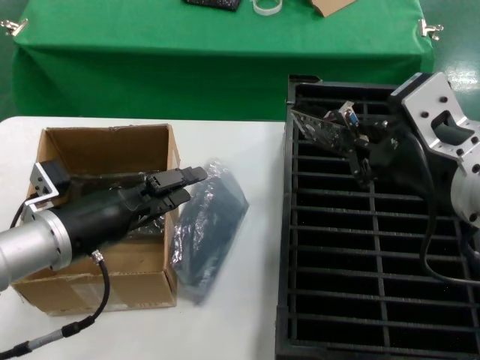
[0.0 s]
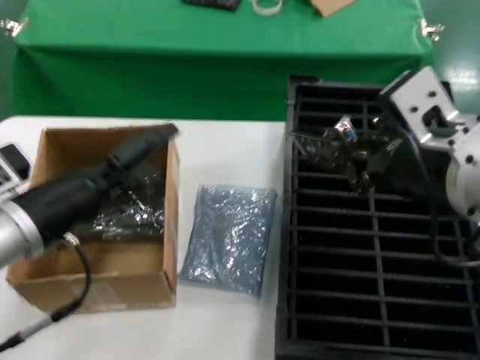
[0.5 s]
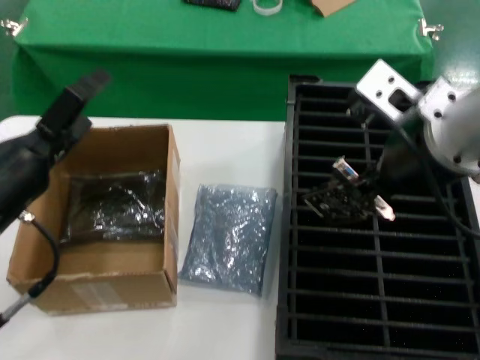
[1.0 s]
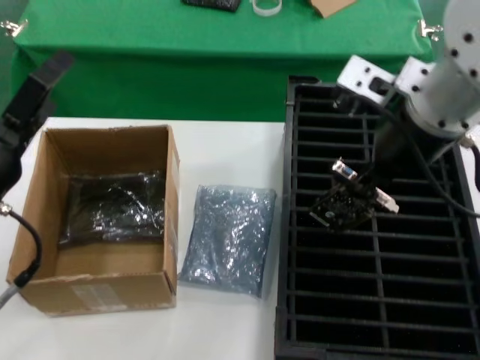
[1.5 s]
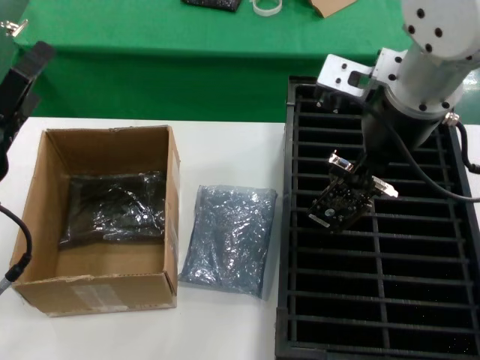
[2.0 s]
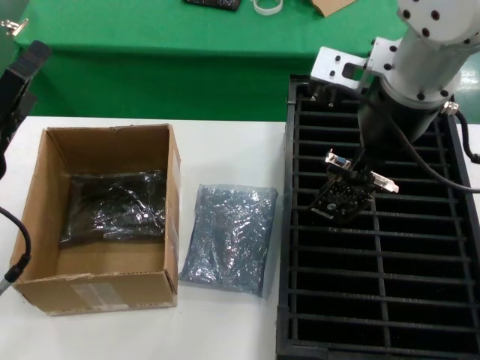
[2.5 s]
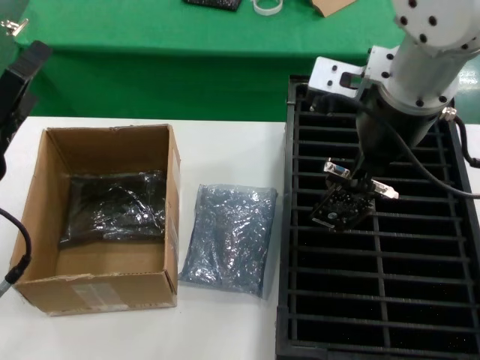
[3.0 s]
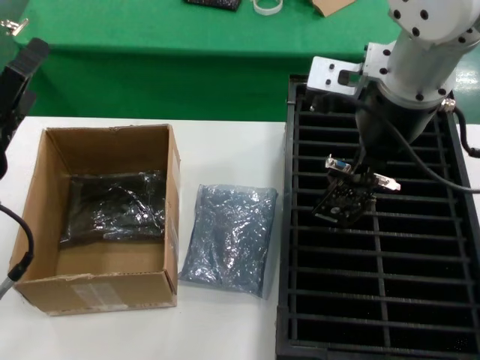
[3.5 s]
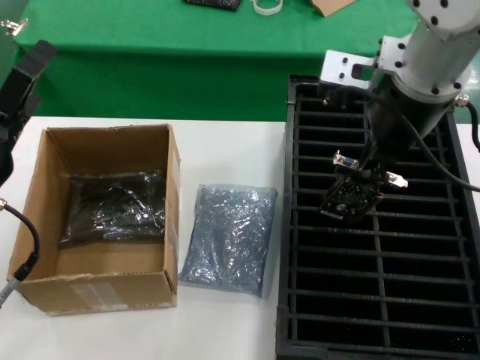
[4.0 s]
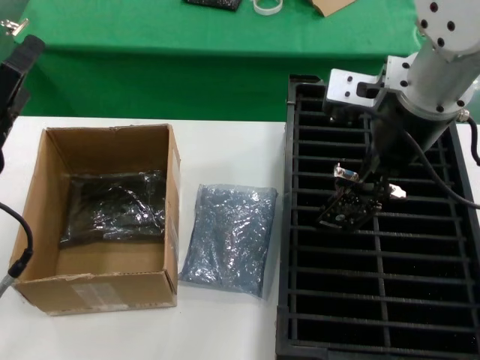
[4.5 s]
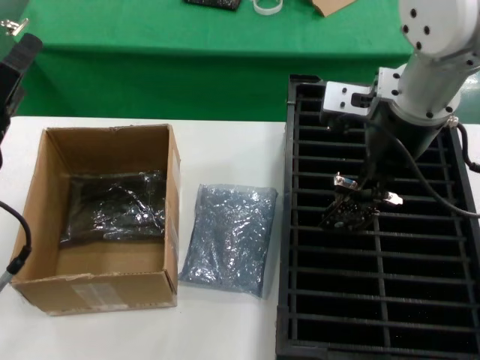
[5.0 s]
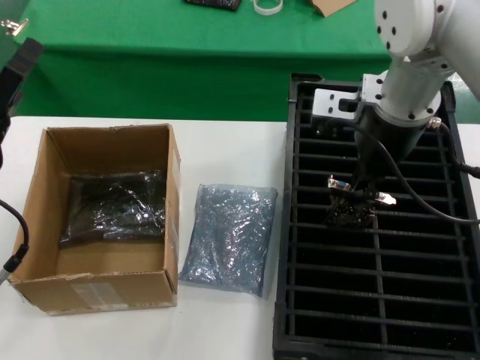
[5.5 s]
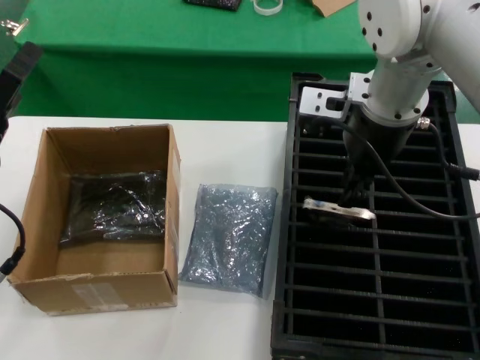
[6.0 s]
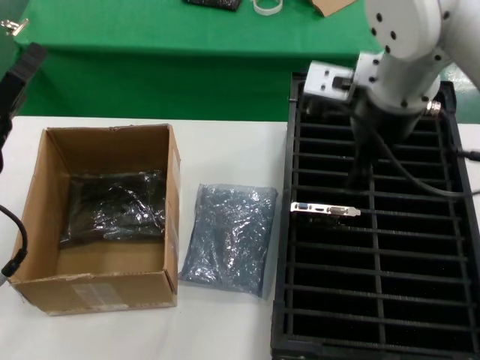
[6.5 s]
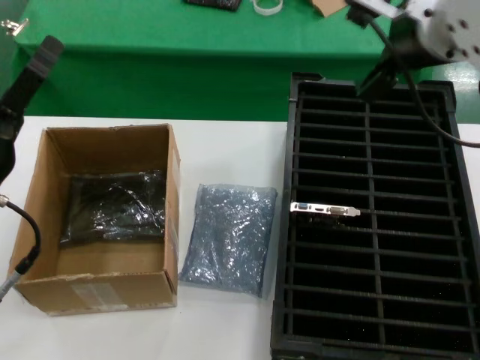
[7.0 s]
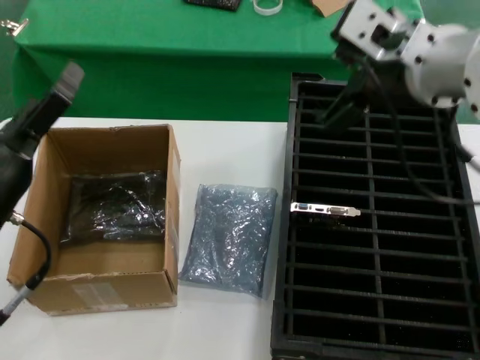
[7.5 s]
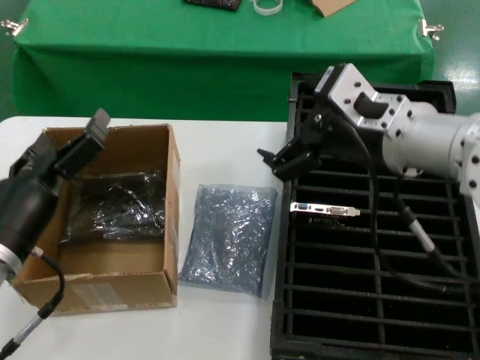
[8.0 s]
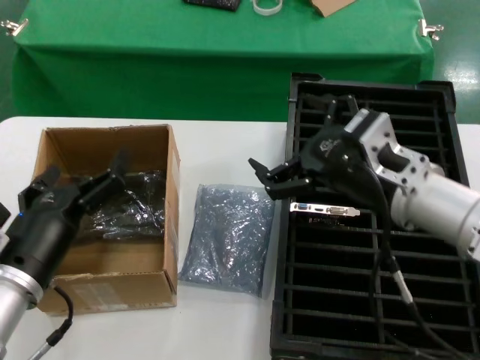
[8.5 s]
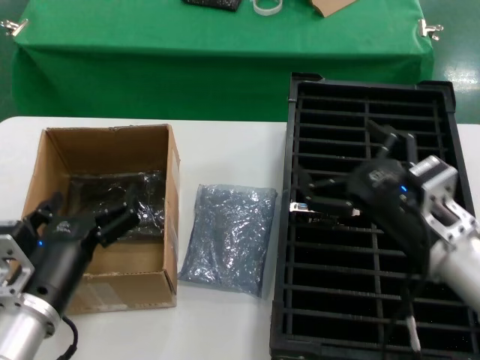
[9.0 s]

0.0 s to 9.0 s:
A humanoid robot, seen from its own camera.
Task of the whole recording: take out graphics card from box remove packaging put into black container.
Step, 0.5 to 6.5 s: Place the hard disk in the hard disk enclosure.
0.0 to 2.0 s: The left hand moves to the left, some 5 cm, while the right hand shifts about 15 cm forward and upward.
2.0 to 4.5 s: The hands move only a little.
4.5 to 7.0 s: The right hand moves about 5 cm forward and comes back.
7.0 to 9.0 s: The left hand moves downward and to the right, roughly 15 cm. Meanwhile the right hand heads downward, covering some 25 cm.
